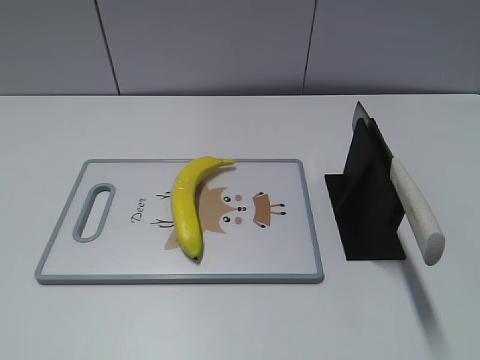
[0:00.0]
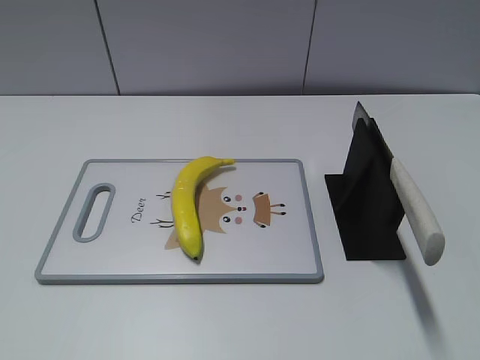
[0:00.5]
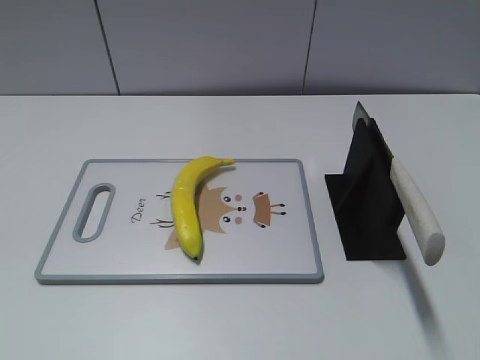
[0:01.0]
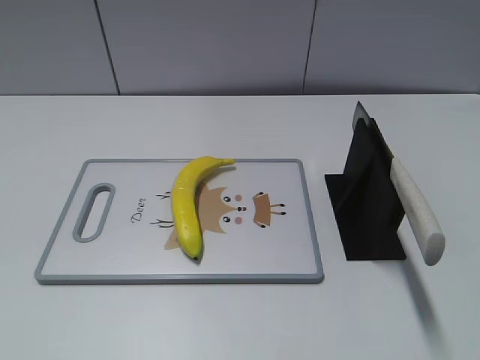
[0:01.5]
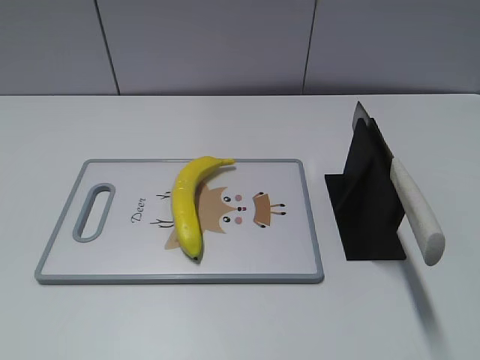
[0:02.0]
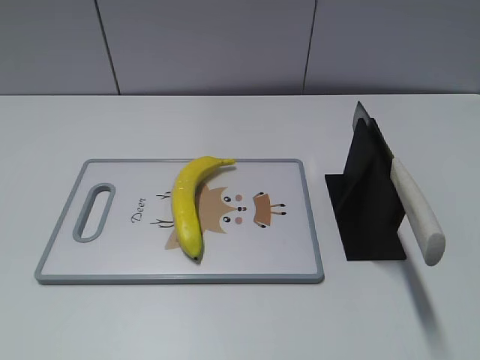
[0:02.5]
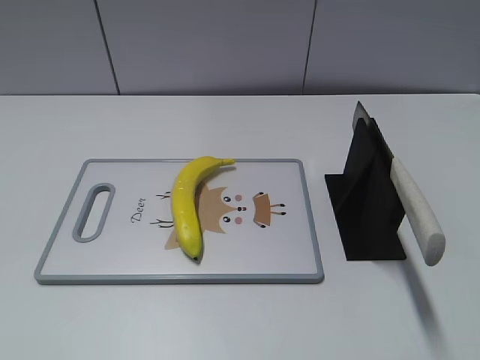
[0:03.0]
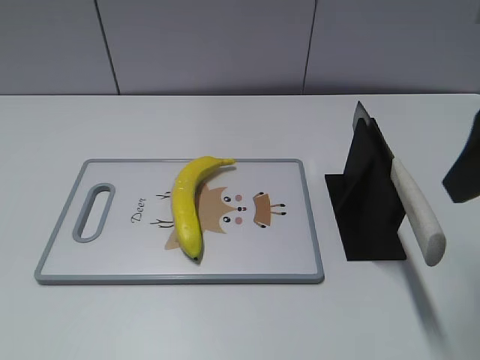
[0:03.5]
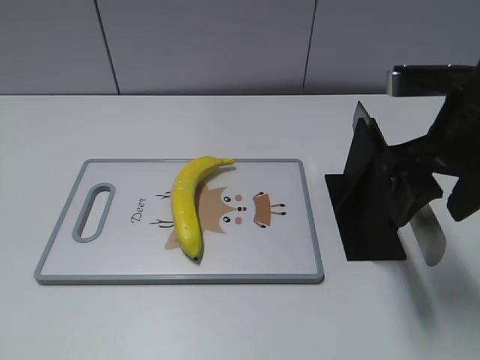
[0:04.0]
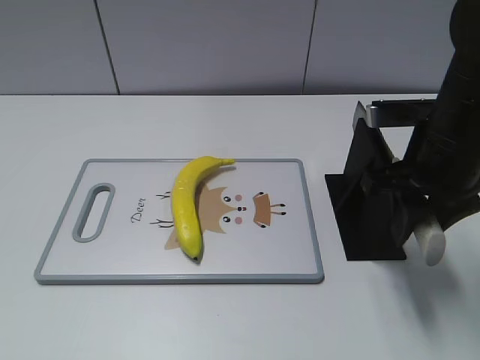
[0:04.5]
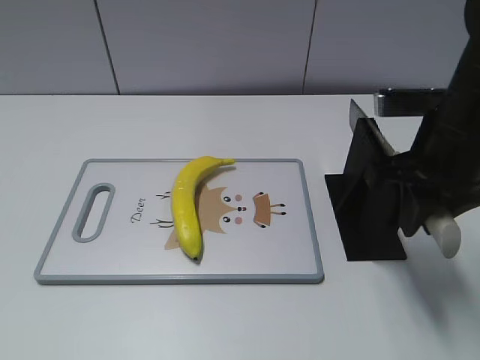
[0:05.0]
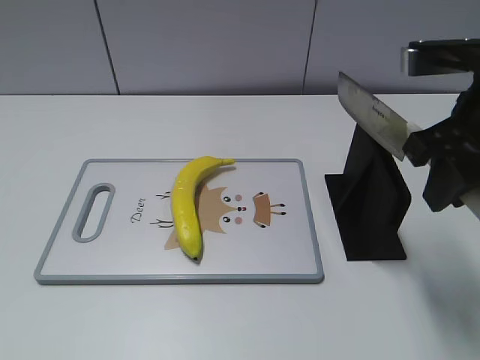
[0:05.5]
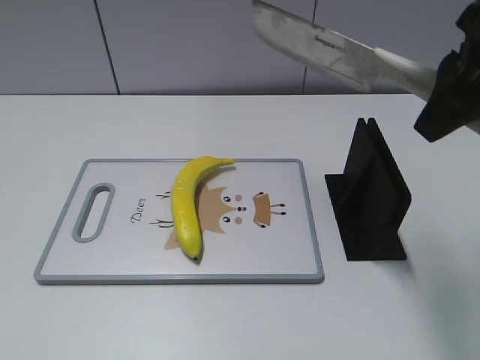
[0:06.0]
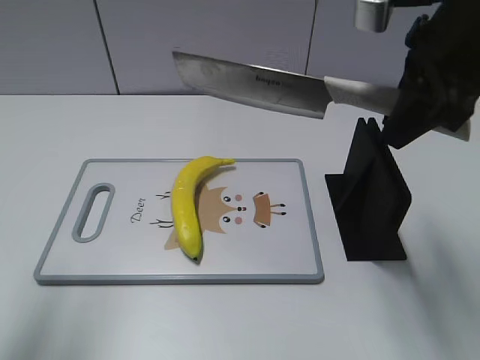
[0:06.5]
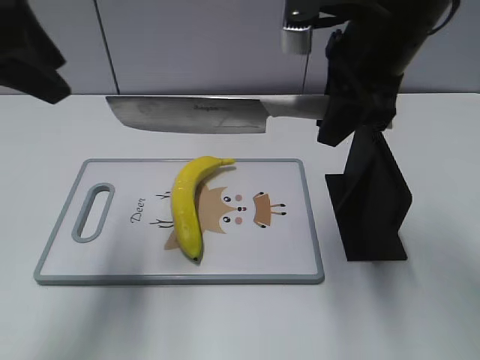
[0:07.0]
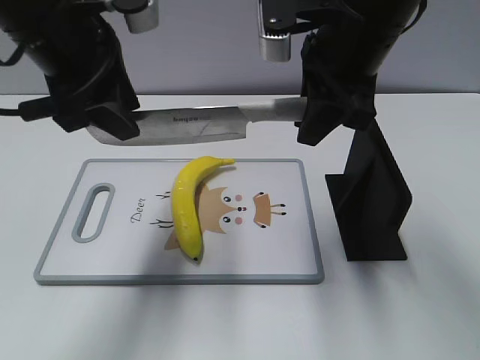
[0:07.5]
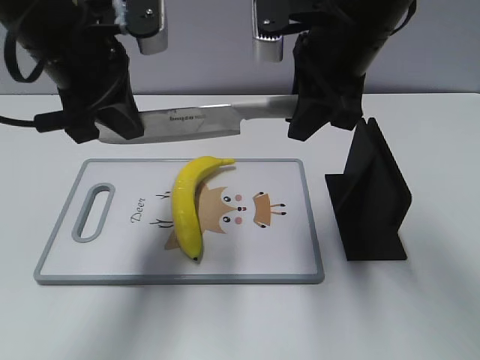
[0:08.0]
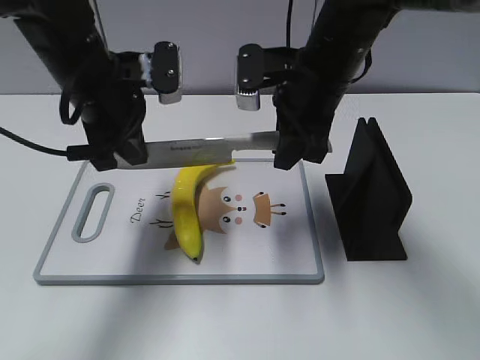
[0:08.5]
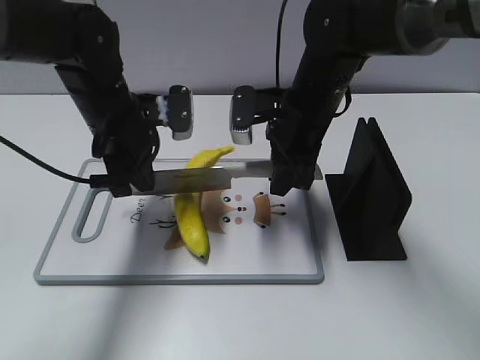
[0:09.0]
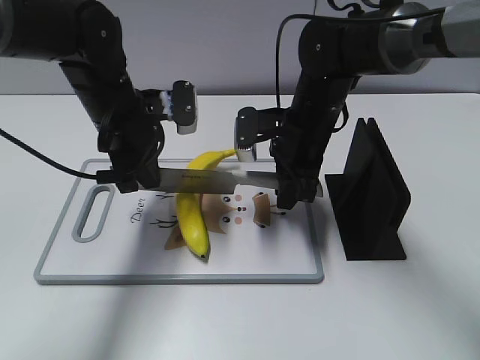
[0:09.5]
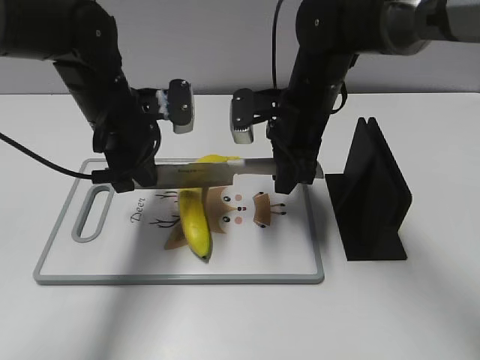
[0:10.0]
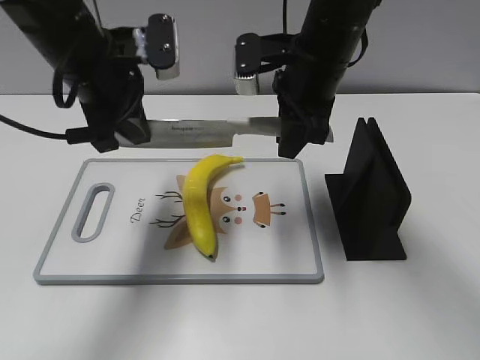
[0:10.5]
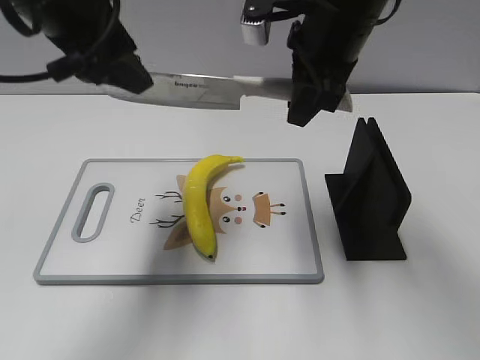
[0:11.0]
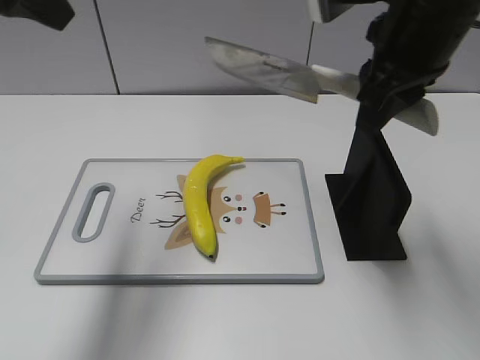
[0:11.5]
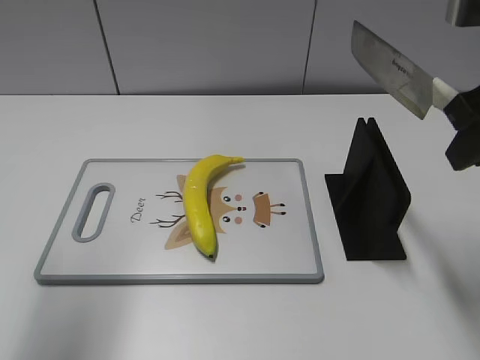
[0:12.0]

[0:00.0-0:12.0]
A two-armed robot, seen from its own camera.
Task of the whole recording: cut plastic banana.
Step, 0:00.0 to 0:05.5: Grab the knife handle with your right hand.
Step, 0:06.0 to 0:10.0: Lift the knife with your right hand.
Step, 0:10.5 to 0:11.5: Cut the banana with your right hand.
0:02.0 to 0:04.0: The right gripper travels forward by some 25 cm.
0:04.0 to 0:06.0: The right gripper goes about 10 cm upward, and closes.
0:06.0 to 0:08.0: The right gripper shifts approximately 15 cm to the left, forward and downward. The left gripper shifts some 30 cm forward and to the right, and closes.
0:08.0 to 0:10.0: The left gripper moves downward, approximately 10 cm. The right gripper goes about 15 cm downward and forward.
0:10.0 to 0:12.0: The right gripper heads upward, to the right and backward, covering approximately 25 cm. Meanwhile the left gripper shifts roughly 25 cm upward, backward and to the left, and opens its fingers.

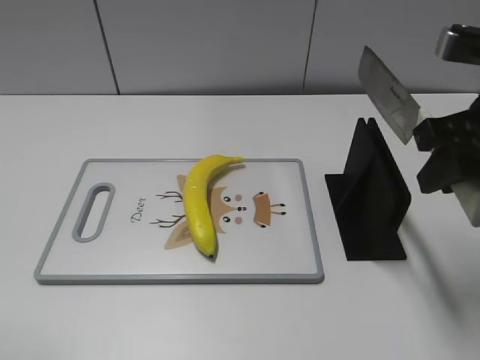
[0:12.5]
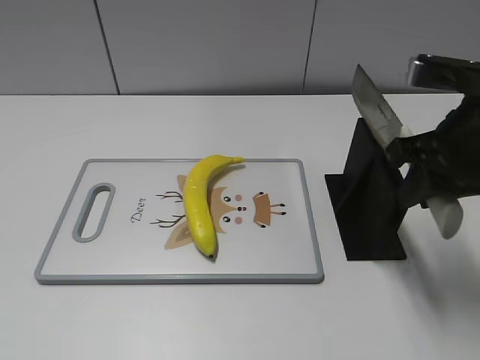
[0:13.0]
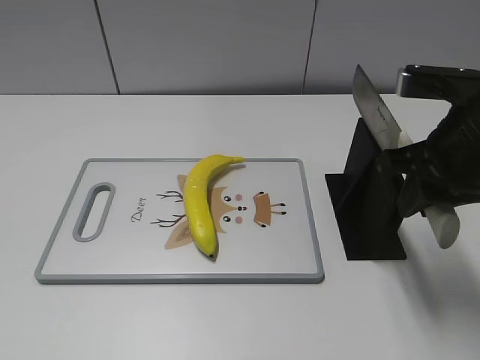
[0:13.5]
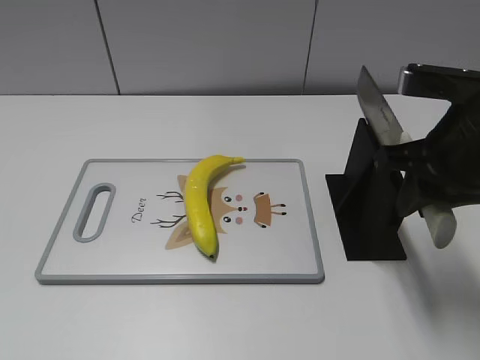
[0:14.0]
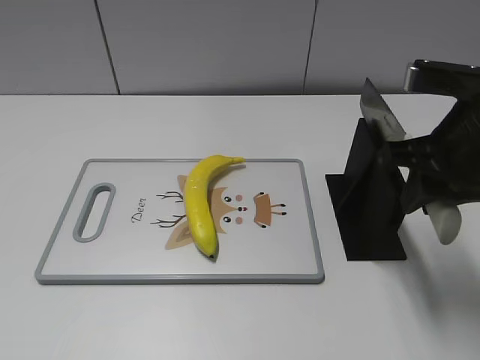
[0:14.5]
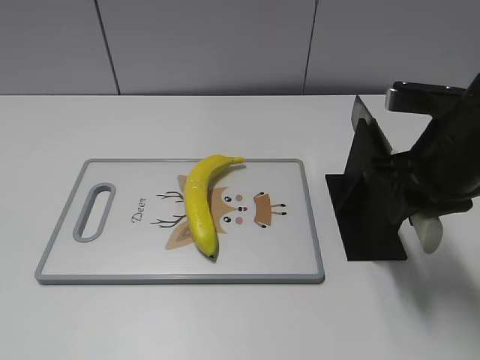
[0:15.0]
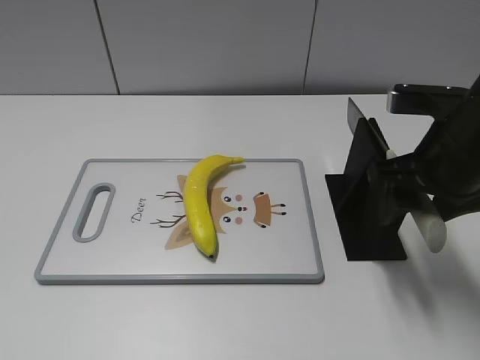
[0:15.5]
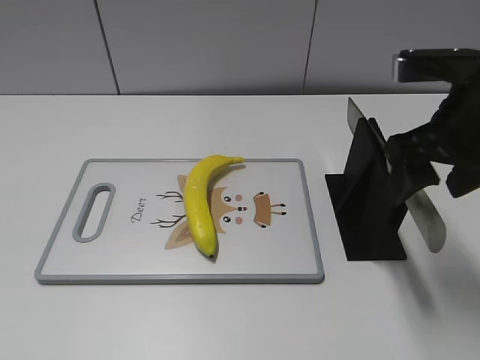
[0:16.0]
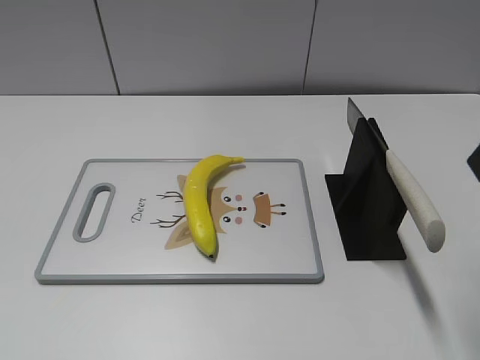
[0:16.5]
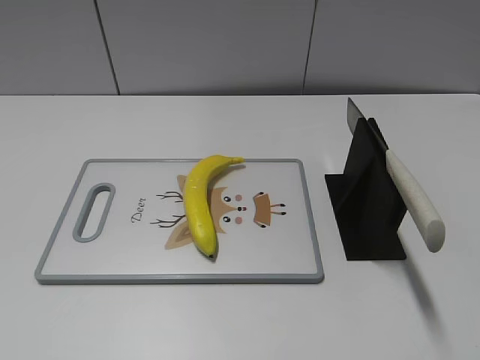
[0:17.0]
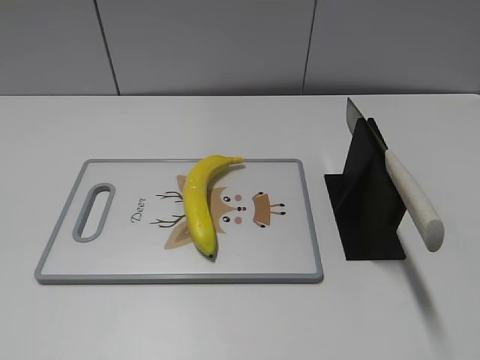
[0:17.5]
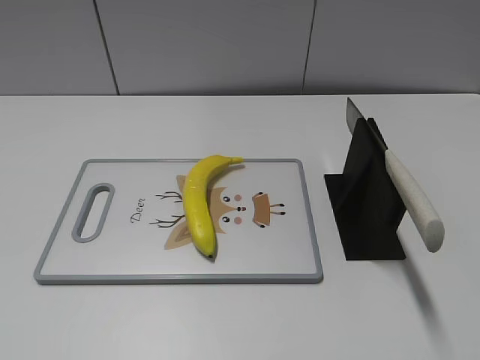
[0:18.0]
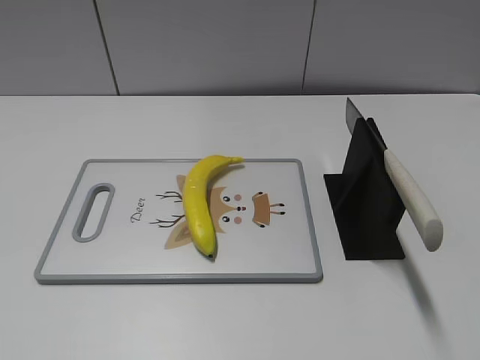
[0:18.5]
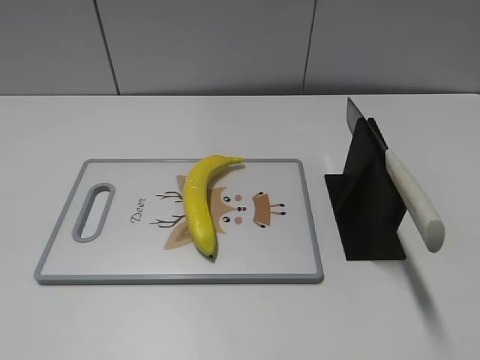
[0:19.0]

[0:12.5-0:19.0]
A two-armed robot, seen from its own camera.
Task of the whole recording: cut plastic banana.
Step, 0:13.5 to 0:19.0: Place the knife on the storage rack with your right hand.
0:14.5 to 0:17.0: The right gripper heads backward and upward, covering some 15 cm, and opens.
